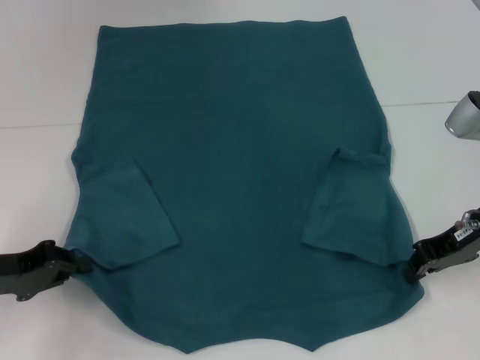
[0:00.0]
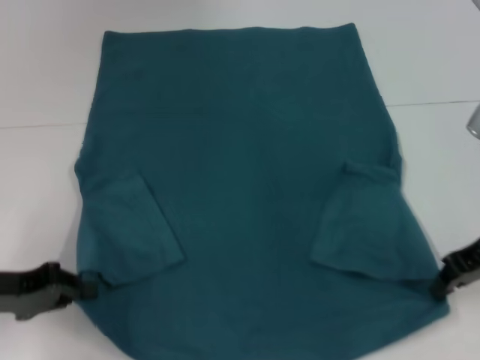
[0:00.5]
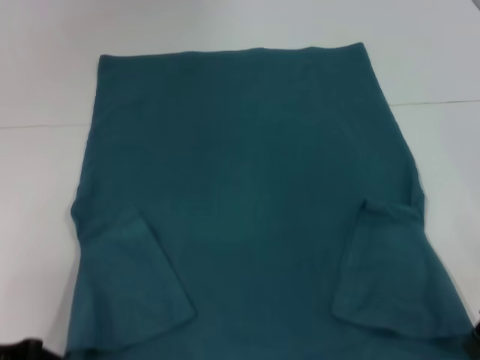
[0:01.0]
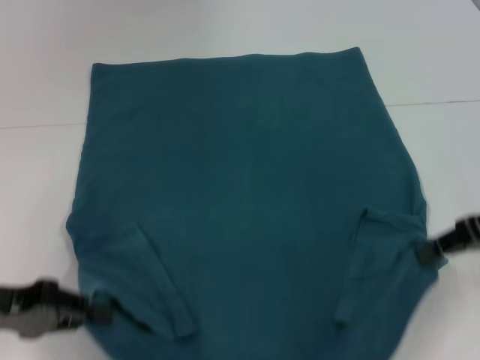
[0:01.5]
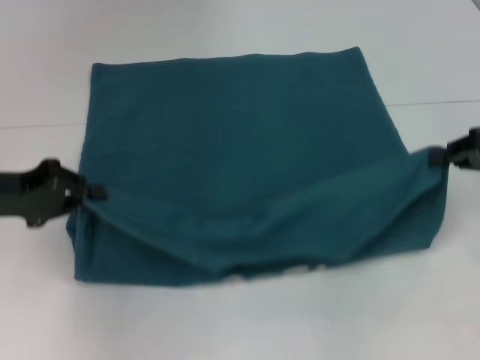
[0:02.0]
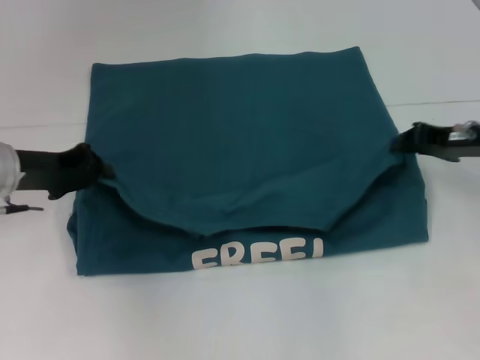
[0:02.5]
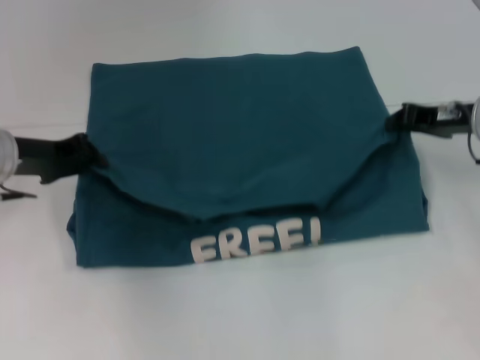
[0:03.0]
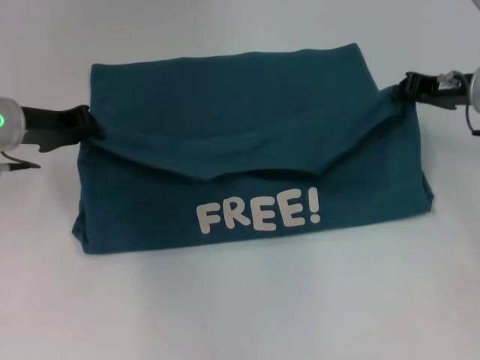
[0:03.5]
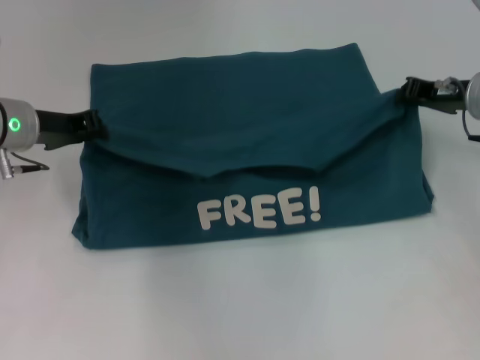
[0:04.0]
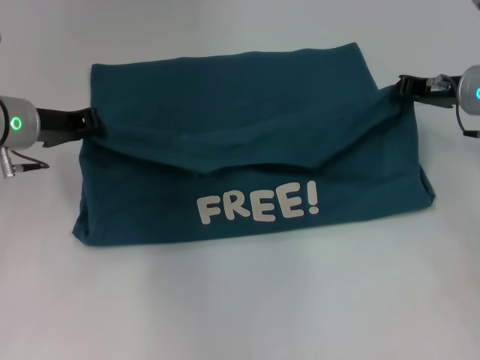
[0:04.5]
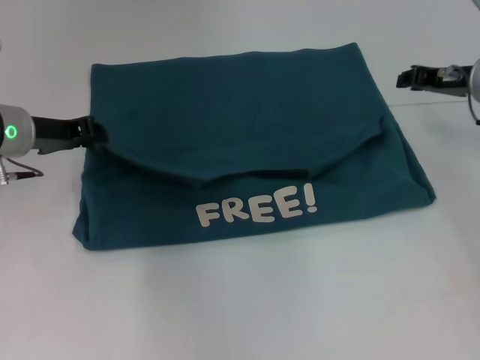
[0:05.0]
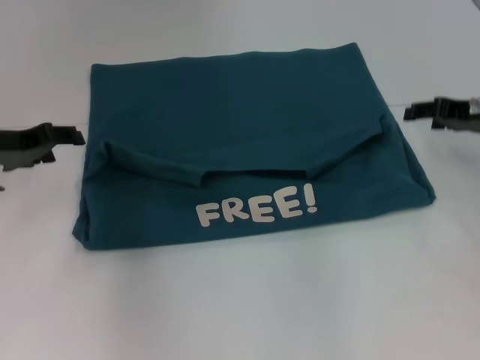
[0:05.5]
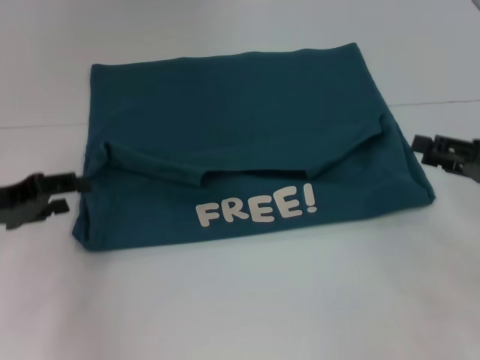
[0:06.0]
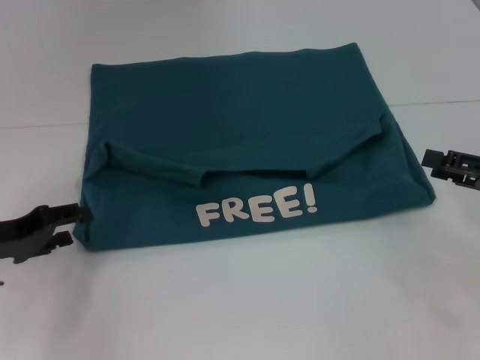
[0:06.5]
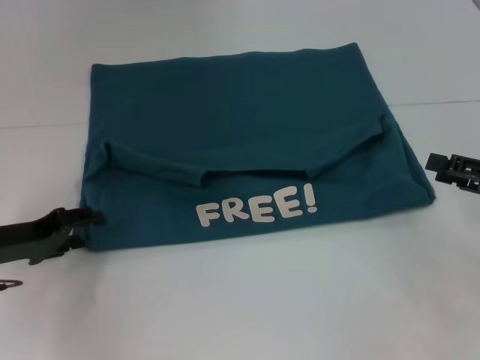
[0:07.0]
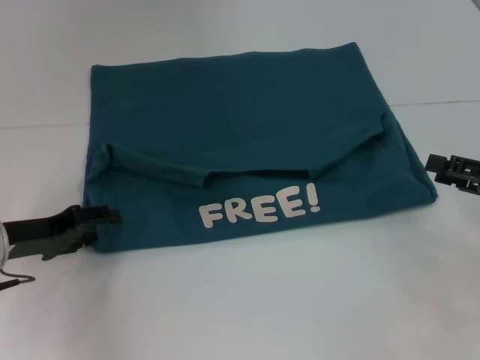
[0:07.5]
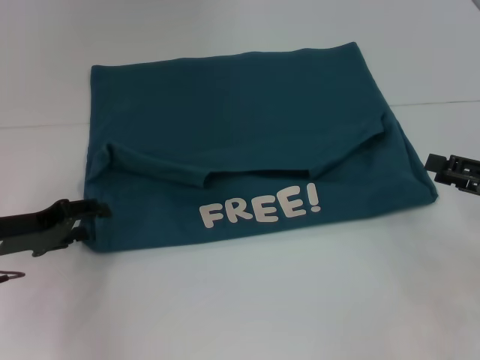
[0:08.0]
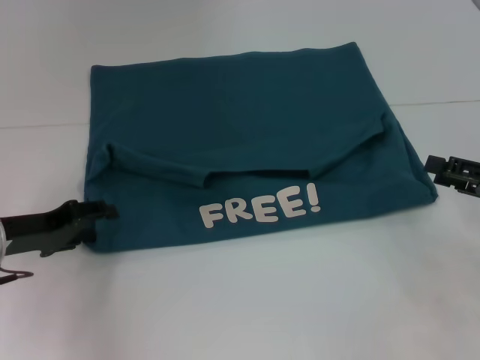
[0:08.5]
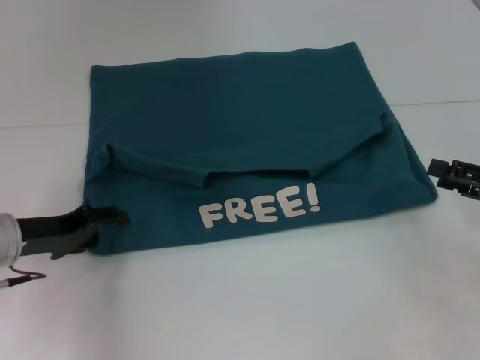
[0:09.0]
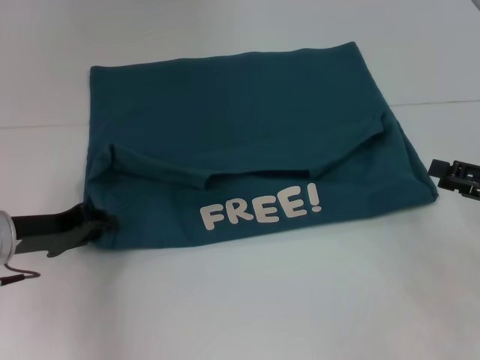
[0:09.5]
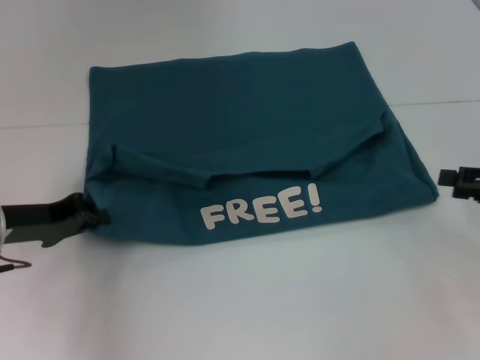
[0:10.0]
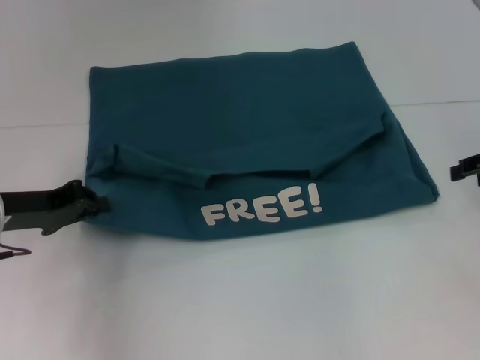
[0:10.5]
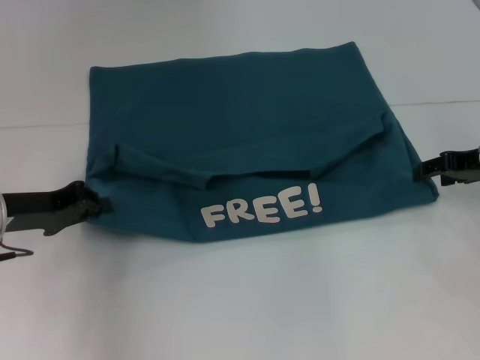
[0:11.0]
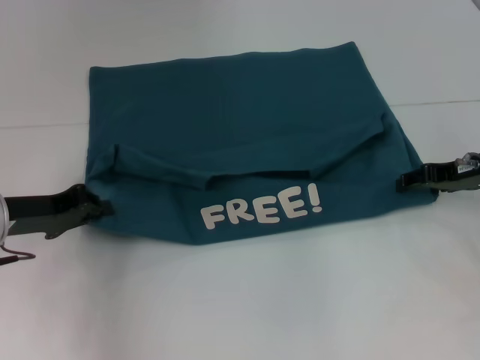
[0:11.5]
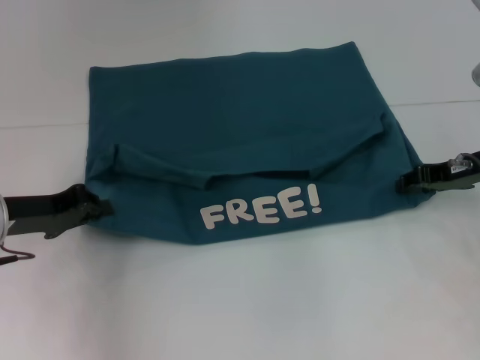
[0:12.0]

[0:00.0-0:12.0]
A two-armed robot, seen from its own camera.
Step, 0:00.0 to 0:05.0: Fold the clothes to the left.
Step, 0:00.0 to 0:05.0: Fold the clothes to the right.
0:00.0 to 0:02.0: The left gripper is displaced upward by roughly 5 cm; the right gripper goes roughly 5 cm to the right.
0:02.0 to 0:04.0: The right gripper travels forward and to the left by about 10 cm, while the left gripper is displaced forward and to the right by roughly 10 cm.
0:04.0 to 0:06.0: The left gripper is displaced backward and to the left by about 10 cm, and opens its fingers. Meanwhile the right gripper is displaced backward and to the right by roughly 15 cm, and opens up.
0:06.0 to 0:08.0: The grippers make only small movements.
0:08.0 to 0:10.0: The left gripper closes its fingers.
0:10.0 to 0:12.0: The right gripper travels forward and to the left by about 10 cm.

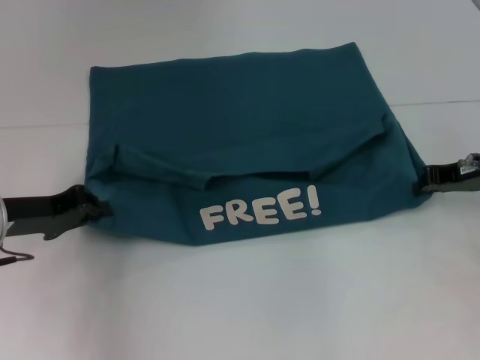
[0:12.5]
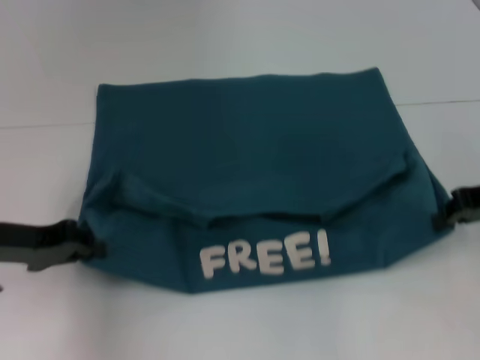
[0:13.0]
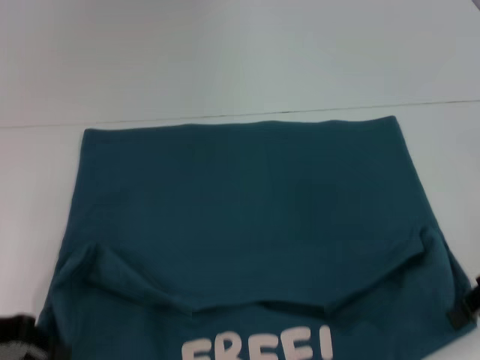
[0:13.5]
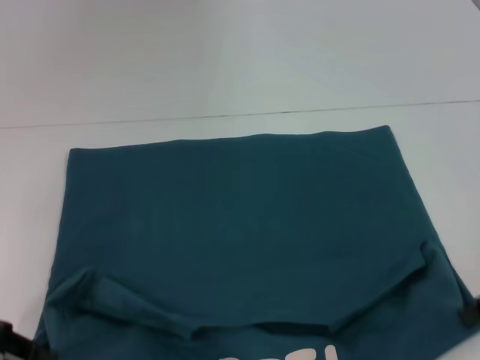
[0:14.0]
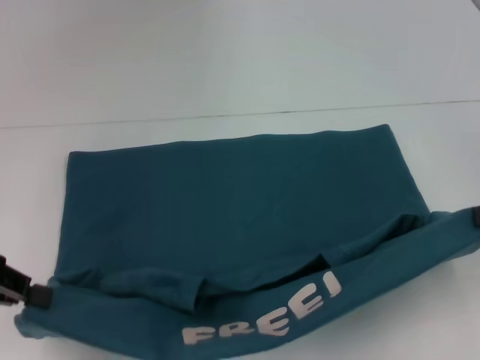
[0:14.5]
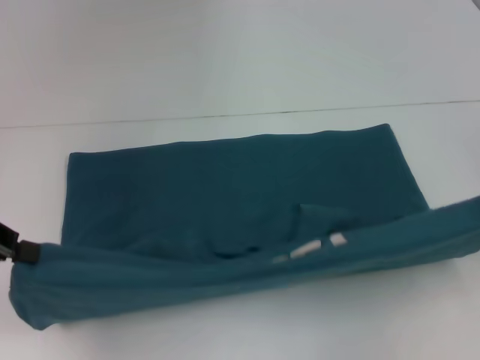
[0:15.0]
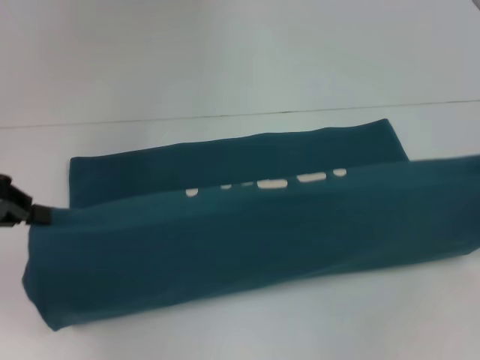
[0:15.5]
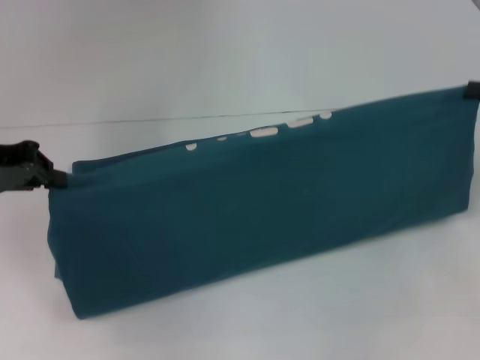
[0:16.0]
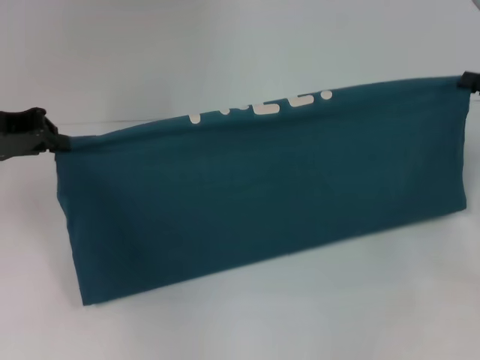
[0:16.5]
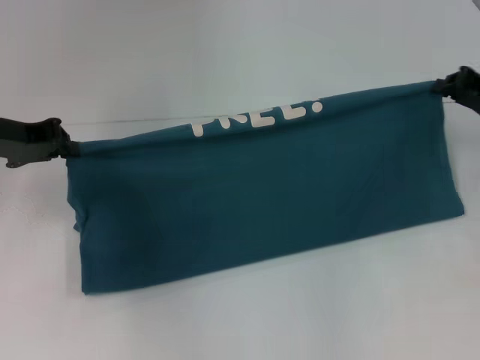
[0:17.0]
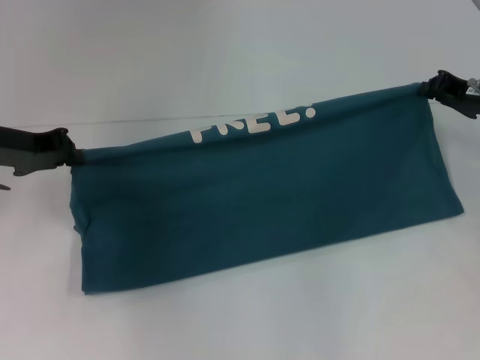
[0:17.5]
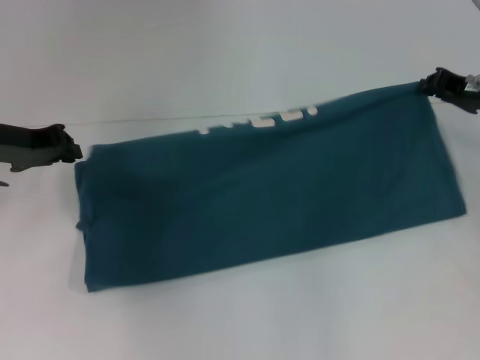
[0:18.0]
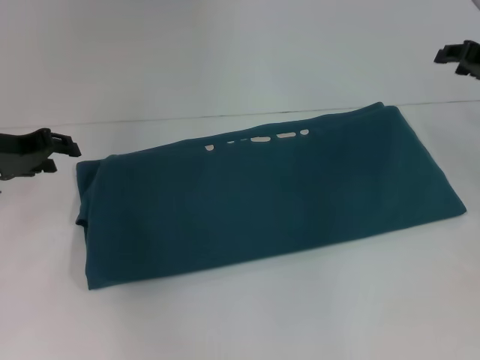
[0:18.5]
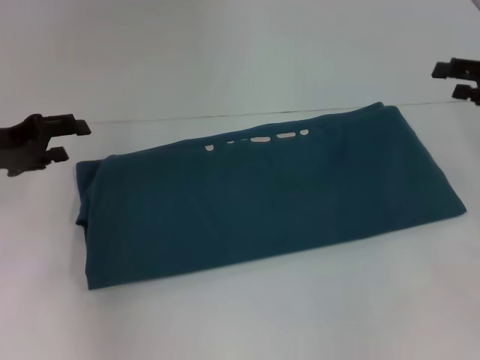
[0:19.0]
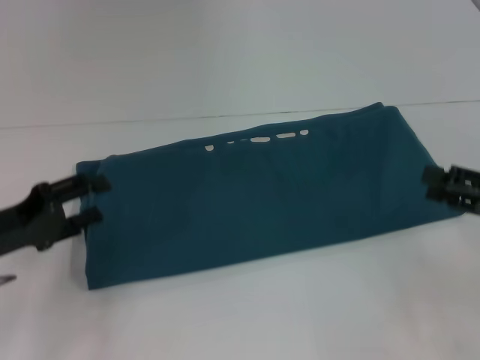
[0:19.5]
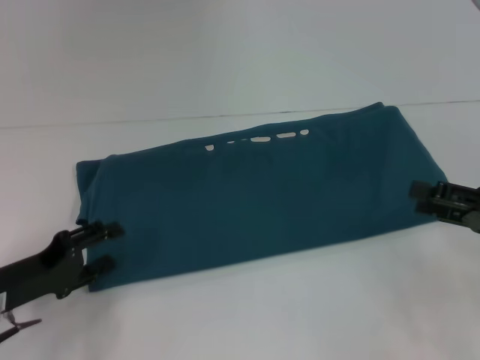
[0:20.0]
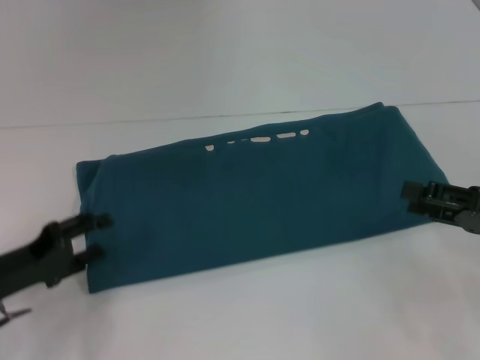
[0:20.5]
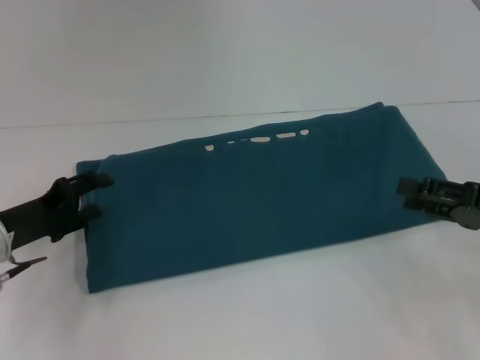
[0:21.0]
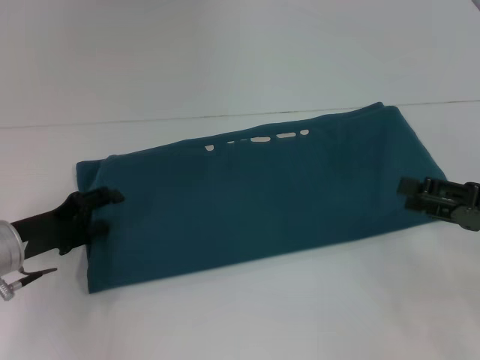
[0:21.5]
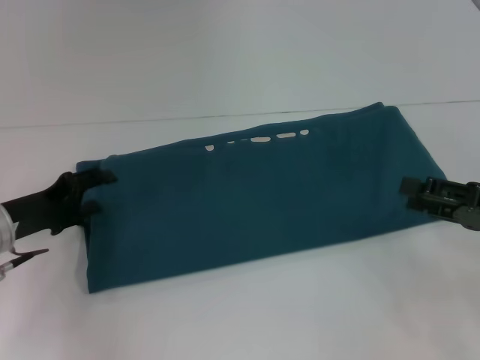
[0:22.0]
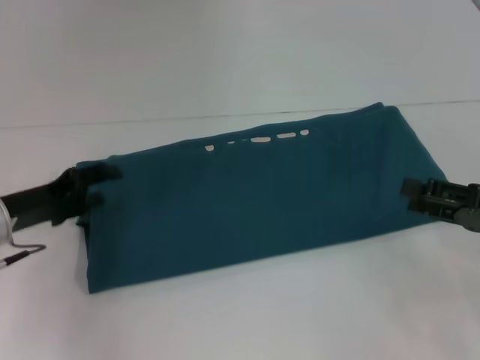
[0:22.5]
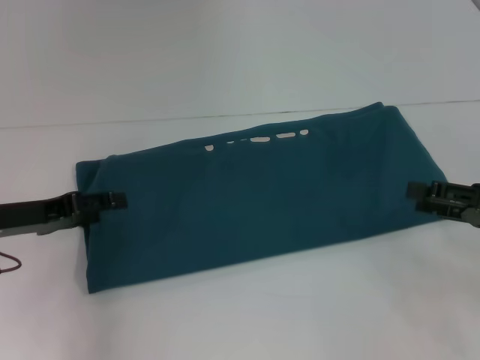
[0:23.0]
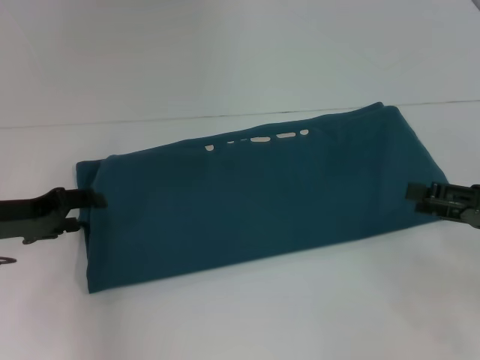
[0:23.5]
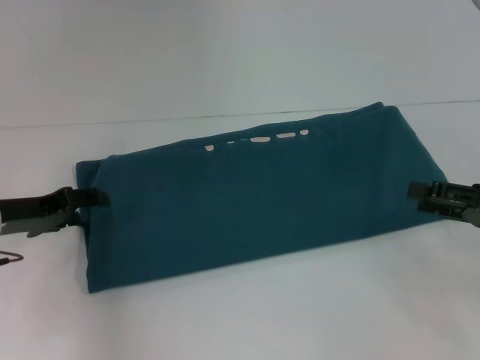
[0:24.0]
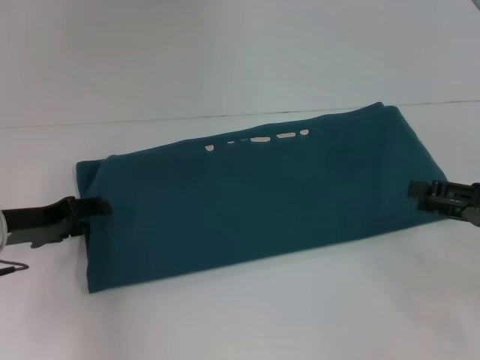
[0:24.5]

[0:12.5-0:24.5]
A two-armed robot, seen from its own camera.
Step, 0:14.0 to 0:18.0: Fold the clothes to the right.
0:12.5 to 0:14.5: The left gripper goes about 10 cm upward, backward and to the left; the right gripper heads backward, upward and to the right, covering roughly 15 cm.
0:14.5 to 0:16.5: The two grippers go approximately 10 cm forward.
0:16.5 to 0:18.5: The left gripper goes about 5 cm downward, and opens up. The right gripper heads forward, covering approximately 5 cm, and opens its fingers.
0:18.5 to 0:20.5: The grippers both shift backward and downward by about 15 cm. The left gripper opens up. Meanwhile the right gripper opens its fingers.
0:20.5 to 0:22.5: The left gripper moves forward, some 5 cm.

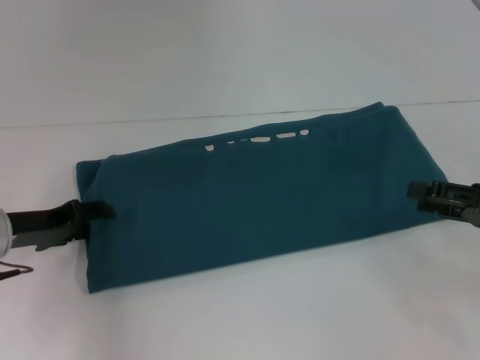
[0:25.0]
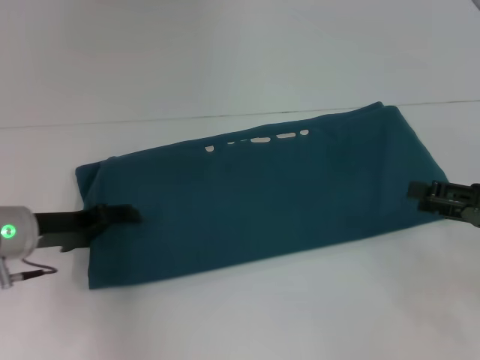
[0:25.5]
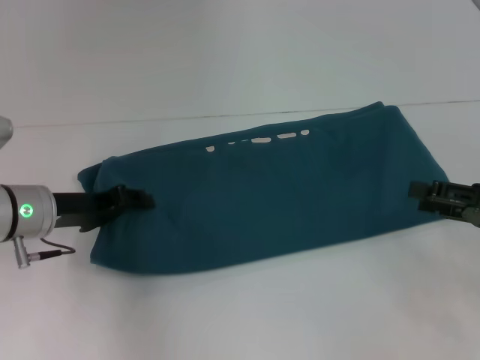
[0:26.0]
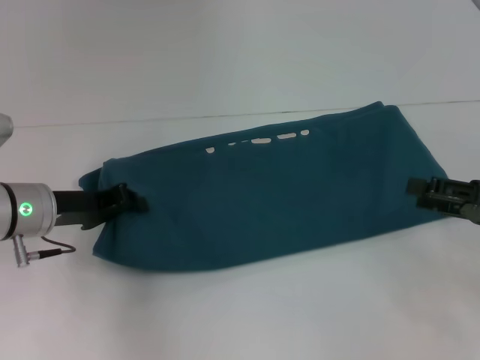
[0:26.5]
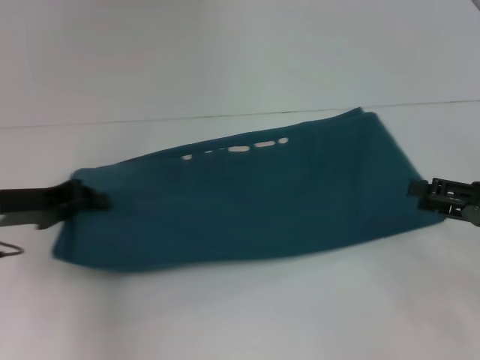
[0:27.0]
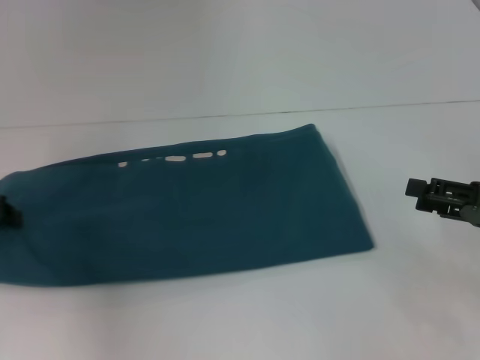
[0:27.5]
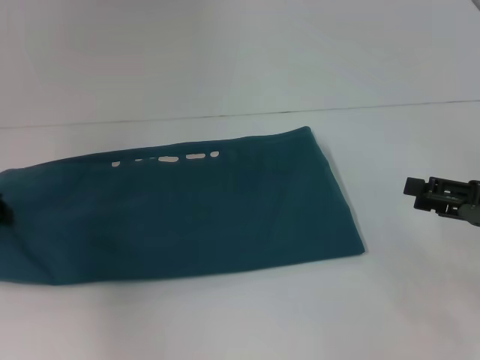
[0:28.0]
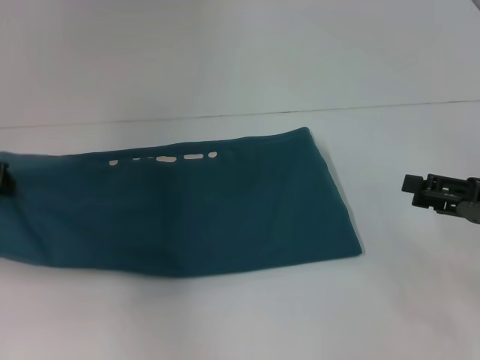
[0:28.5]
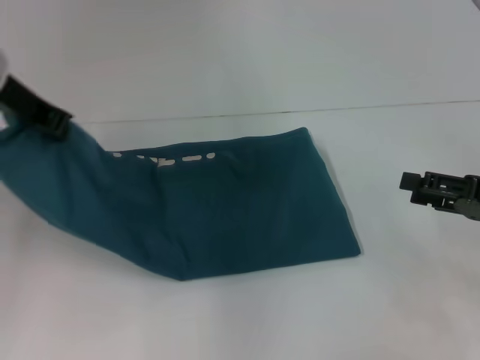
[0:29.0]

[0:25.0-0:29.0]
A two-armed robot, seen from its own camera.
0:25.0 to 0:27.0: The left gripper closes its fingers.
0:27.0 to 0:29.0: The left gripper heads upward and to the right, covering approximately 20 cm.
